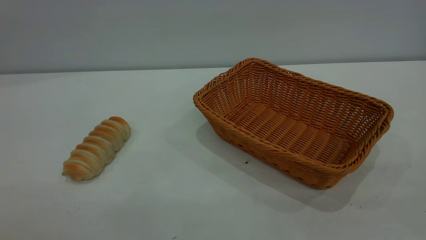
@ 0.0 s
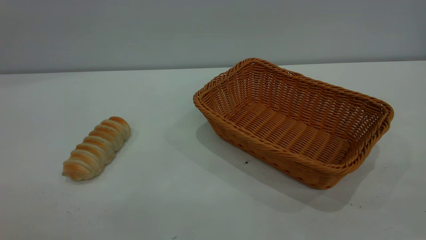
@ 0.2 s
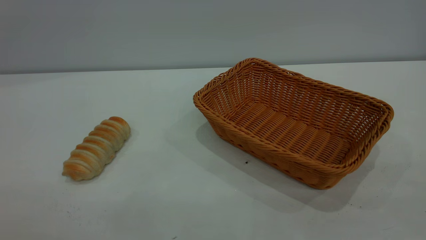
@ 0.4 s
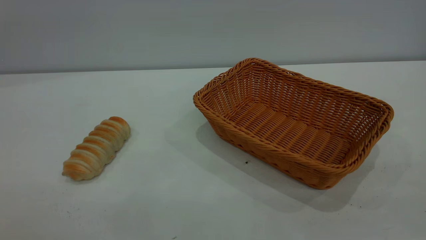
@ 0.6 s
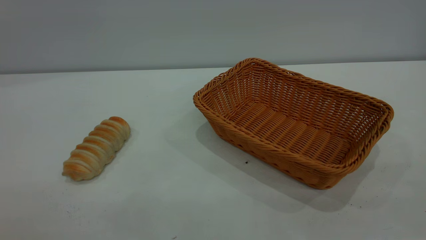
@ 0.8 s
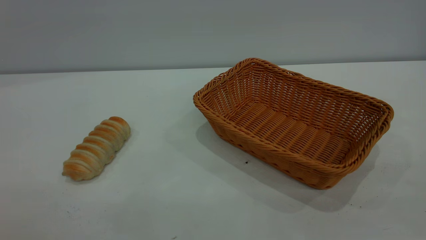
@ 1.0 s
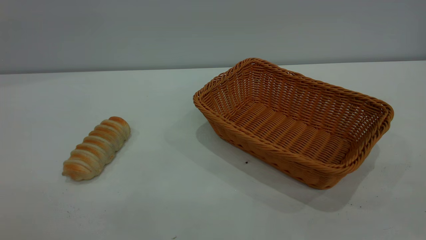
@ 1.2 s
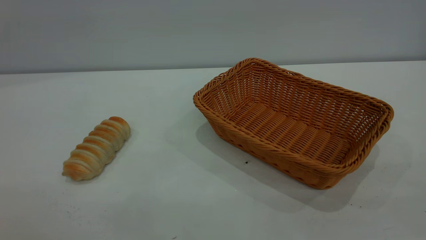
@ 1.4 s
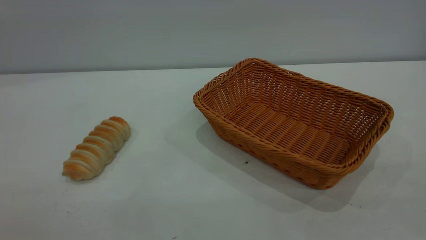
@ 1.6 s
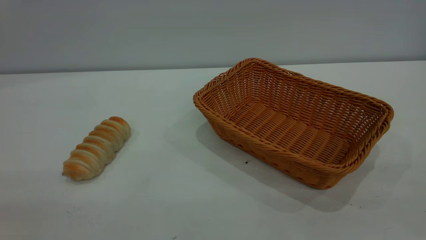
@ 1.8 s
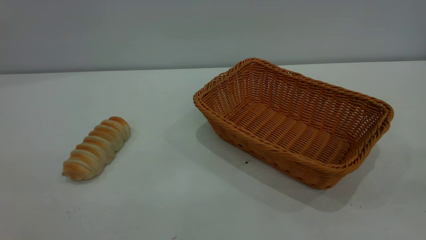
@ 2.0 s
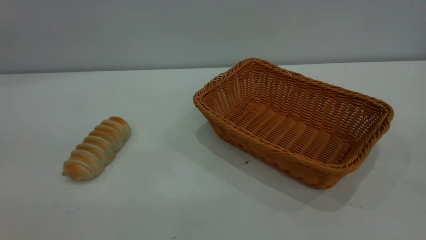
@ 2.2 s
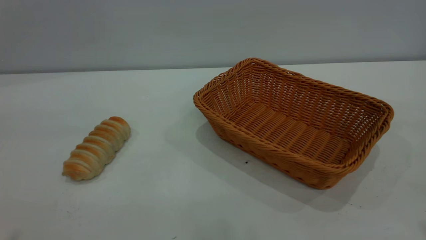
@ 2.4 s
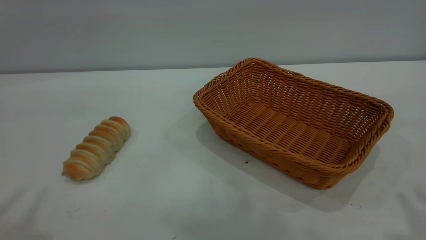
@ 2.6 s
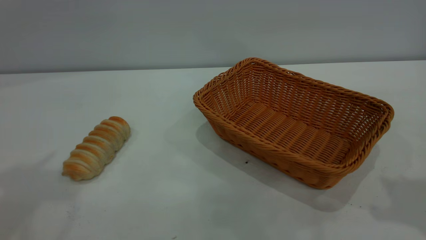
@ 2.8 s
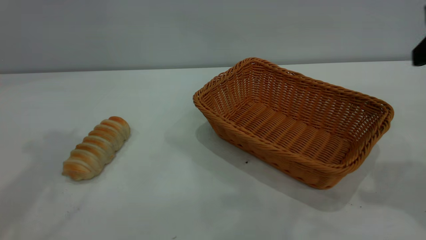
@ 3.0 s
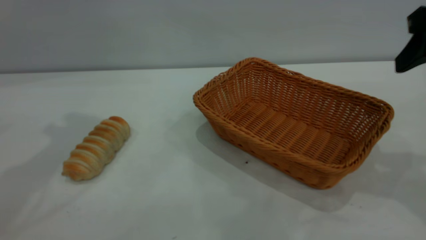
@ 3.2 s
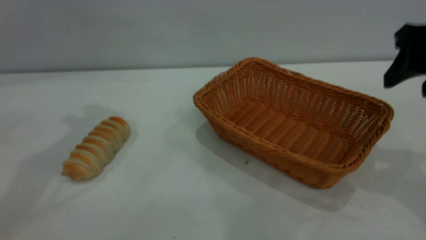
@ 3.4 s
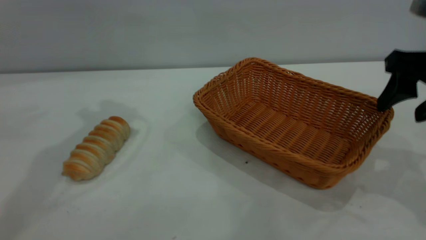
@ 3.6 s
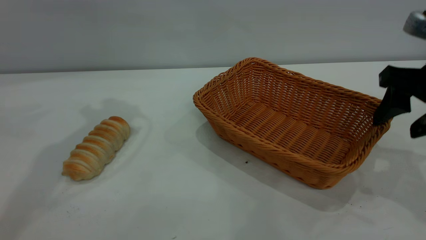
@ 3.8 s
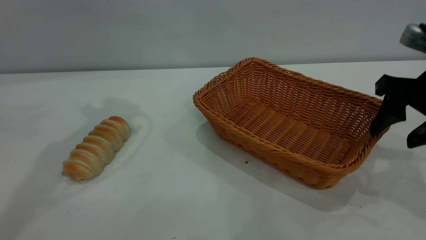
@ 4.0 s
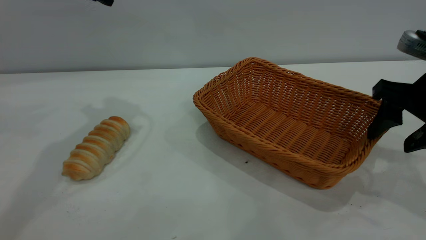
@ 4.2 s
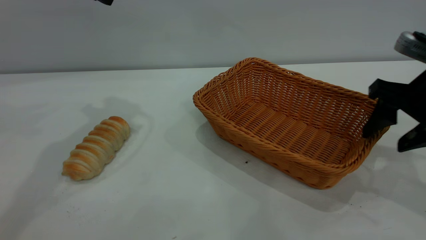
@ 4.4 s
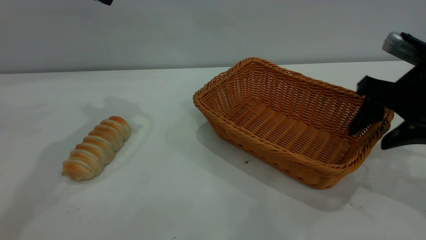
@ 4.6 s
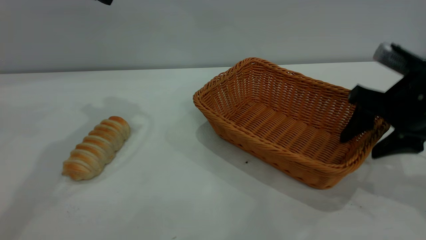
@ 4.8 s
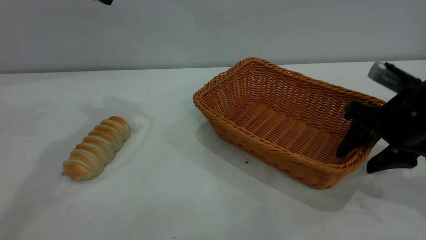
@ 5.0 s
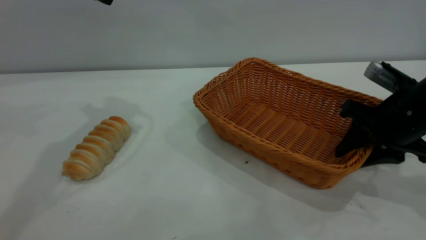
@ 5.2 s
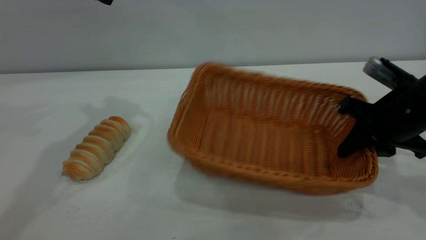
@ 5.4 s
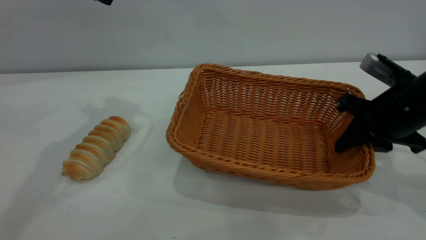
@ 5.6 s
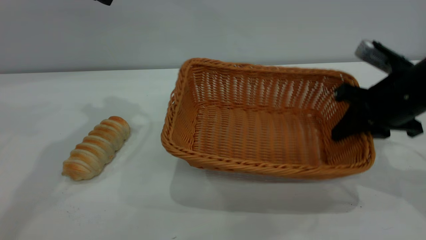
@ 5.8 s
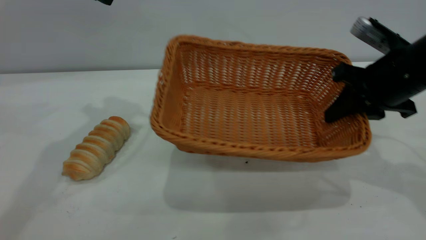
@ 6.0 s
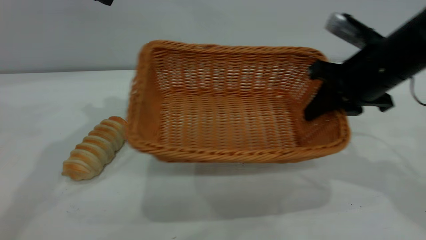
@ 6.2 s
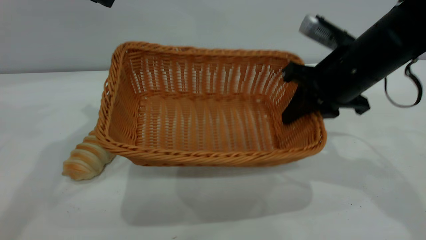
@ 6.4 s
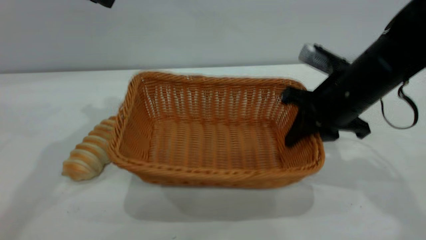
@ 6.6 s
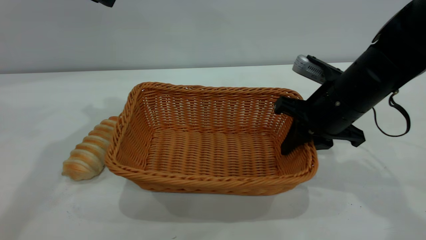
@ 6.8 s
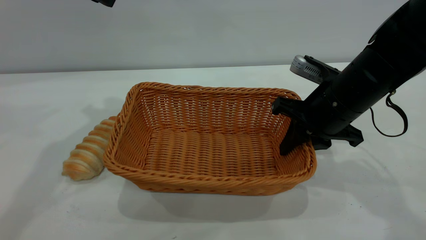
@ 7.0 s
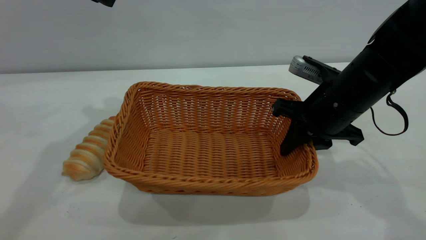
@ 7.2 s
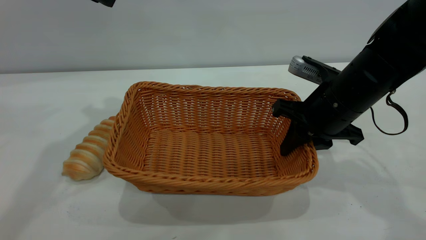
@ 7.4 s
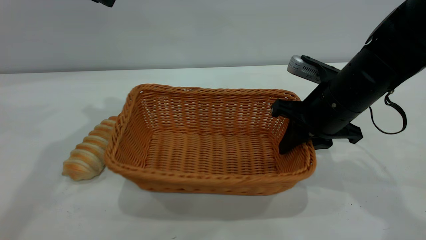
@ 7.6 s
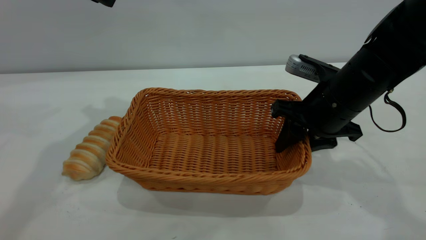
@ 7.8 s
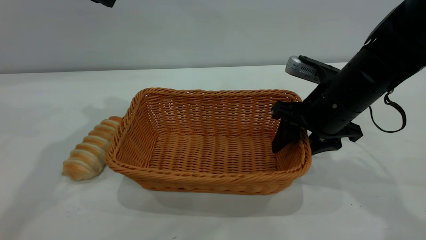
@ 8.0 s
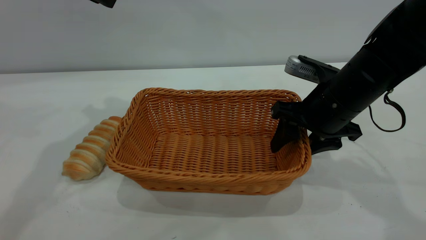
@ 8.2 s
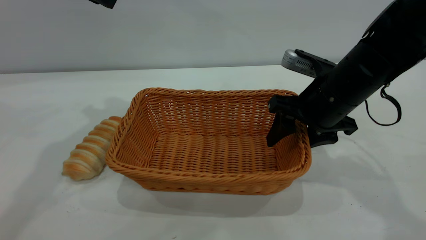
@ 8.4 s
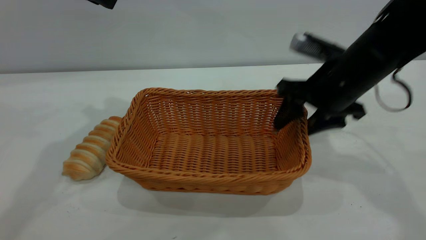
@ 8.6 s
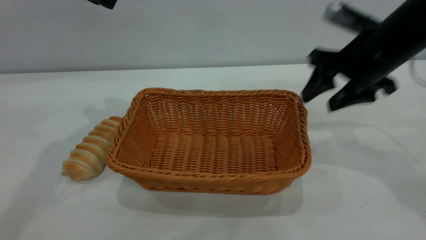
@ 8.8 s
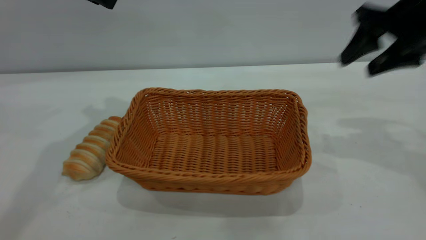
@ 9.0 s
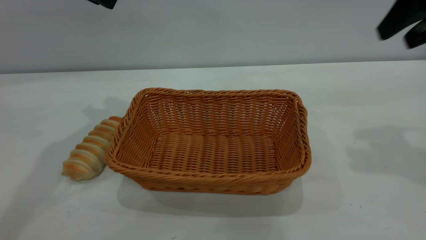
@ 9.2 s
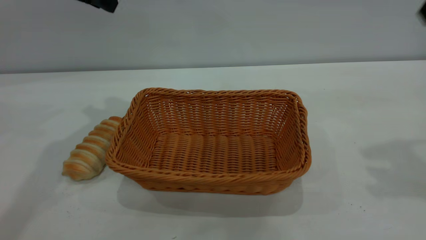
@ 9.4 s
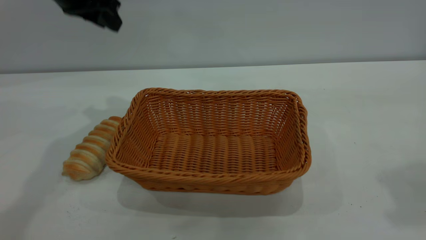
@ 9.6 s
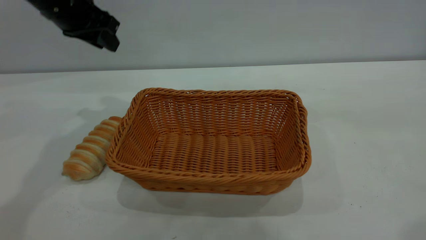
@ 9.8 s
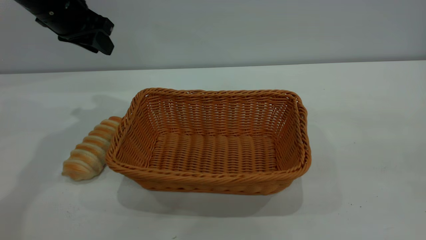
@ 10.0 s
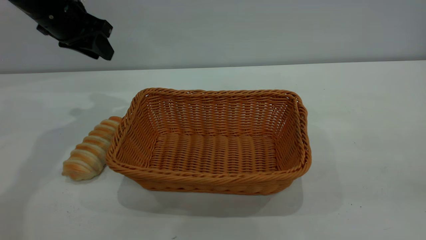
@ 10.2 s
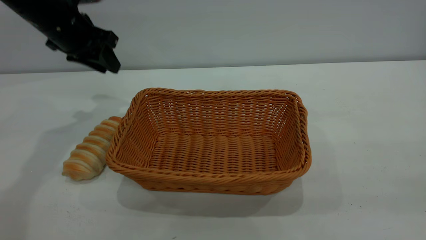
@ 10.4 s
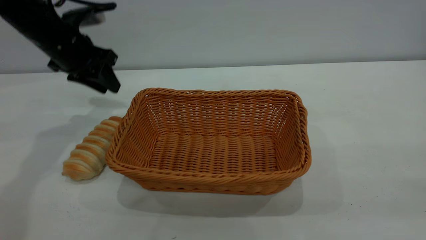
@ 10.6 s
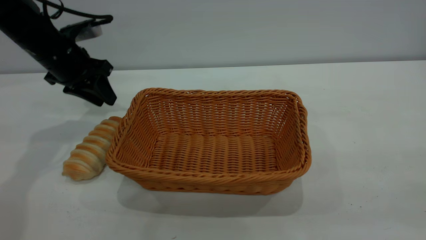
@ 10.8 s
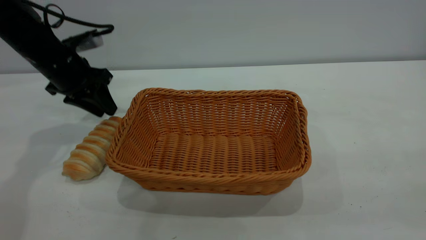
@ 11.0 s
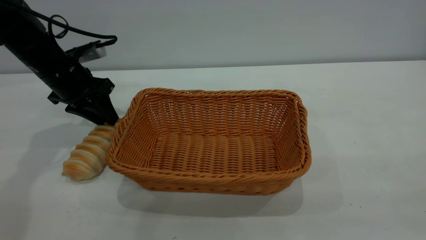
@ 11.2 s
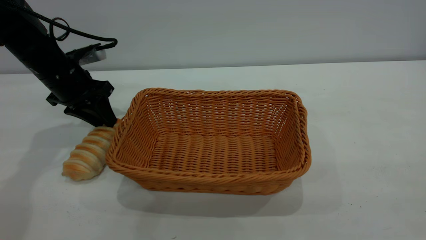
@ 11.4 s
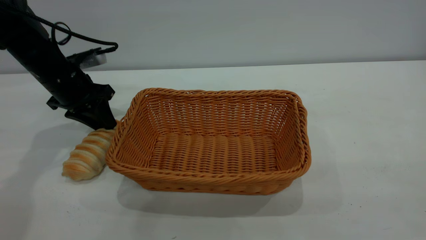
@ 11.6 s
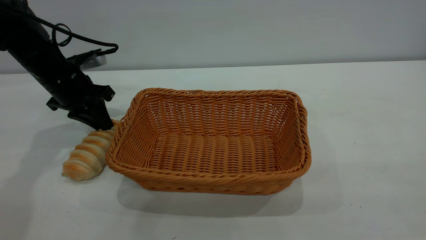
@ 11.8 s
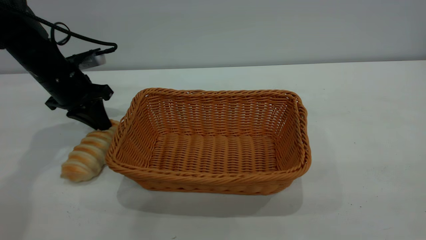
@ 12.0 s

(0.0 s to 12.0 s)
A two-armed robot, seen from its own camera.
Task of the whole recording: One hand grasps the yellow basket and places it in the middle of the table, while the other hand picks up the long bread and puts it into the yellow basket.
Step, 0.0 s - 8.6 s: Move the basket to the center of view.
0.0 s - 1.6 s: Both grippers stay put.
3.0 s - 4.4 s: The right gripper goes approximately 10 cm downward, and opens up.
4.4 s - 6.0 s: The right gripper shifts by some 5 cm, and closes up.
6.0 s - 7.6 s: The right gripper heads to the left, covering about 5 cm.
7.6 s - 9.0 s: The right gripper goes roughly 15 cm upward and to the right, and opens up.
9.0 s - 10.4 s: The right gripper moves backward, about 30 cm. Meanwhile the left gripper is displaced downward by some 10 cm.
10.4 s - 12.0 s: The left gripper travels downward by about 10 cm, and closes.

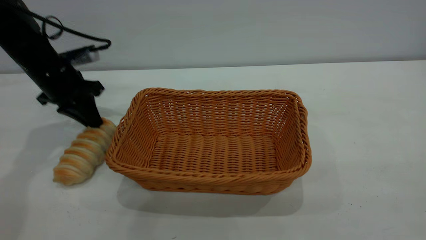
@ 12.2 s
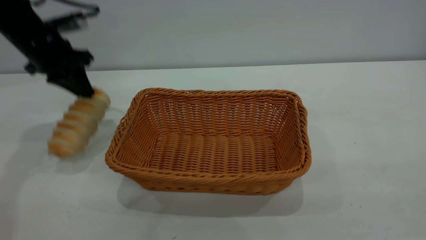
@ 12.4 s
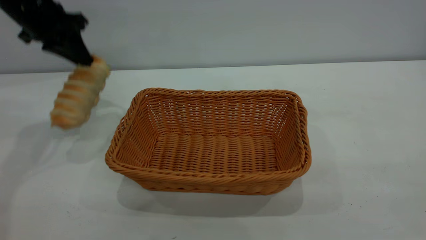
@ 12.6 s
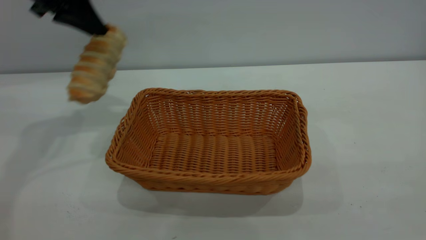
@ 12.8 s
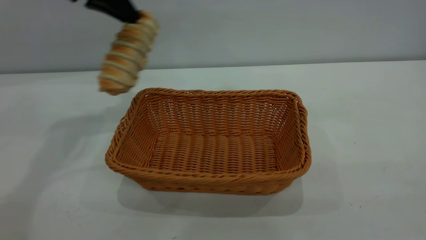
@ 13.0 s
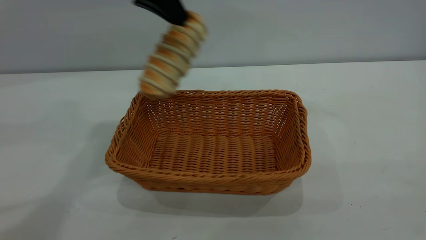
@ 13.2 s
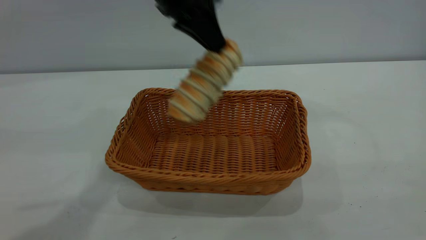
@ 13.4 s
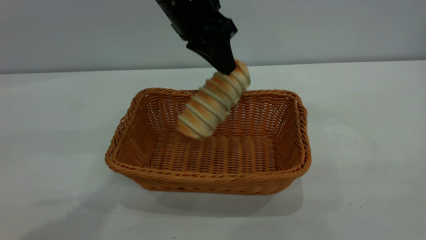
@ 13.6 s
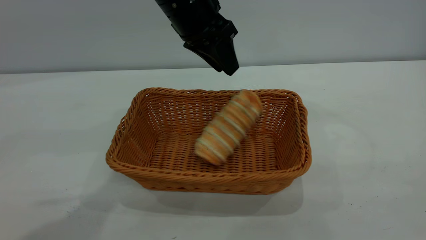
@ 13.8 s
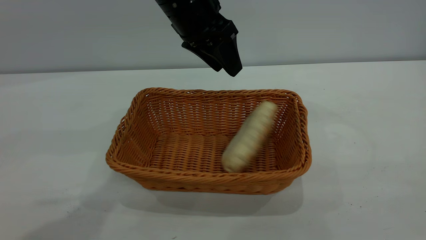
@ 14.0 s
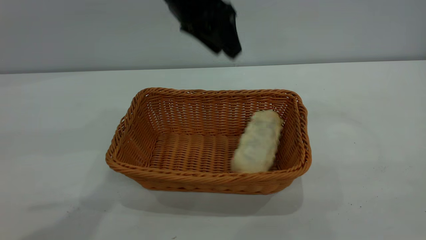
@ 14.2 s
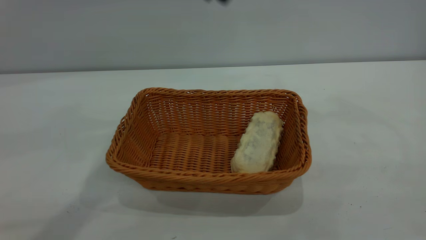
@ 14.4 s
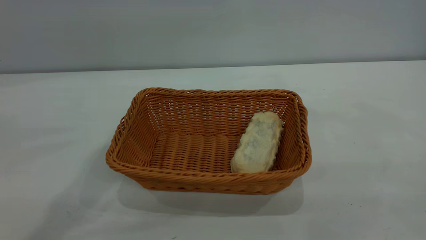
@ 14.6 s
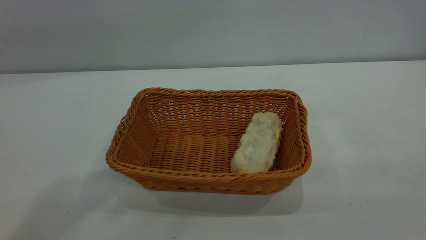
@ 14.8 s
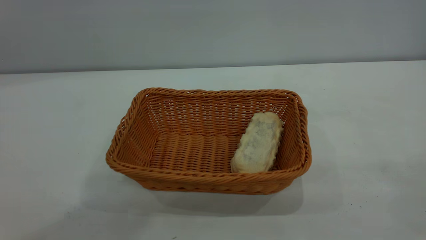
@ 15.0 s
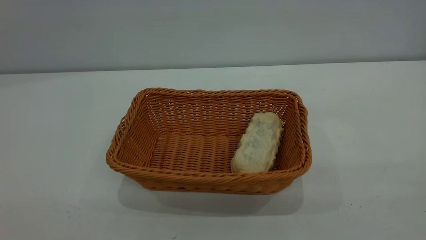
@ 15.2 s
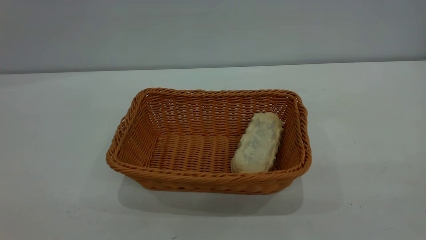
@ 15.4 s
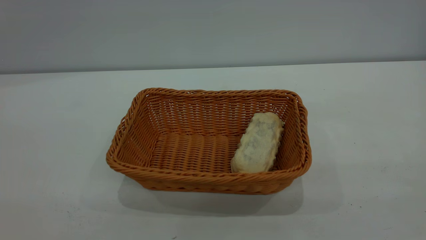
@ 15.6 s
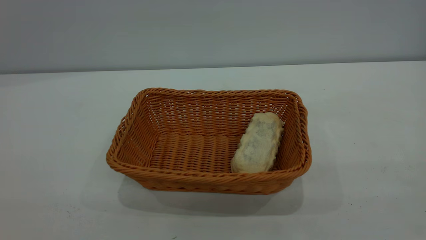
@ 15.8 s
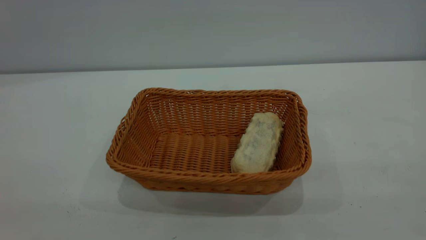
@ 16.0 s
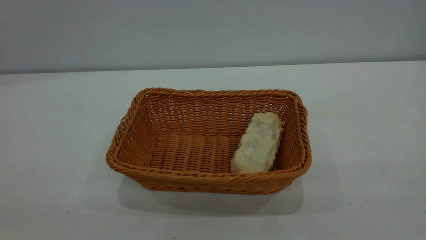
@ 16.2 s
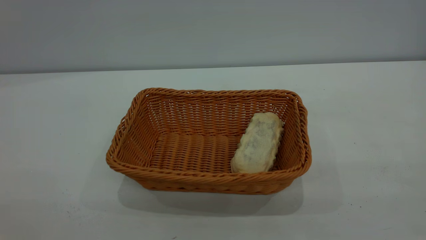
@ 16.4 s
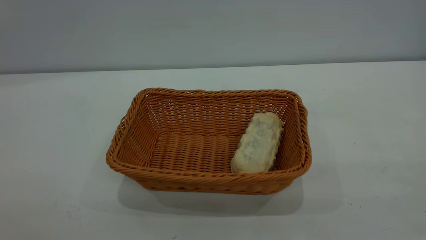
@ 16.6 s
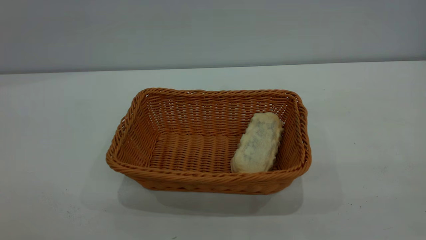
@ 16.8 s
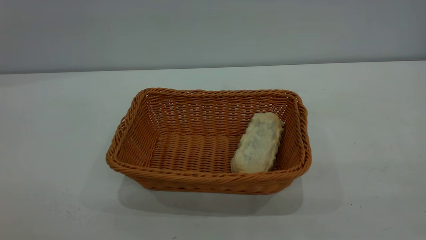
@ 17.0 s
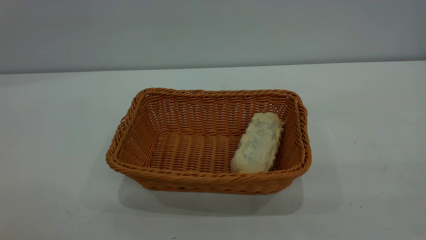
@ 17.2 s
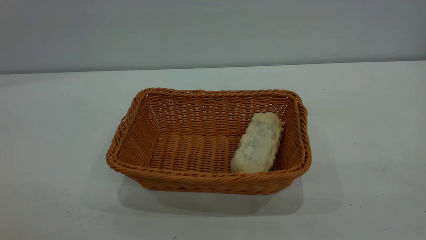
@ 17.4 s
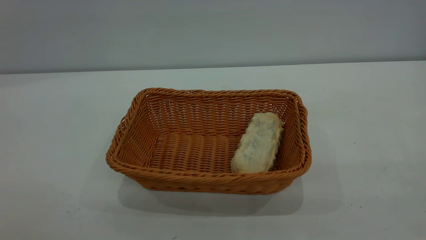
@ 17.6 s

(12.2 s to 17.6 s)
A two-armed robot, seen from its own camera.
Task of the whole recording: One hand grasps the yellow basket and places it in the middle of the table, while the other hand picks up the long bread and puts it into the yellow basket.
Step, 12.6 s - 14.0 s: place the bread into the basket.
12.2 s - 13.6 s: The left gripper heads to the right and upward, covering some 25 cm.
13.6 s - 15.0 s: The left gripper shifts some 40 cm upward and backward, and opens its fingers.
